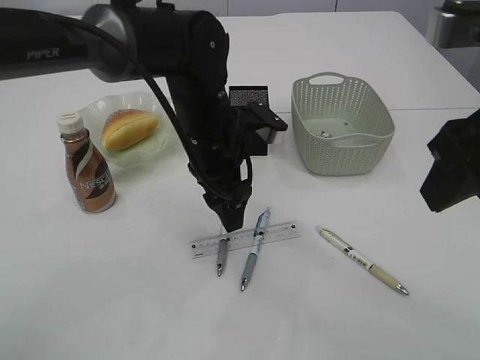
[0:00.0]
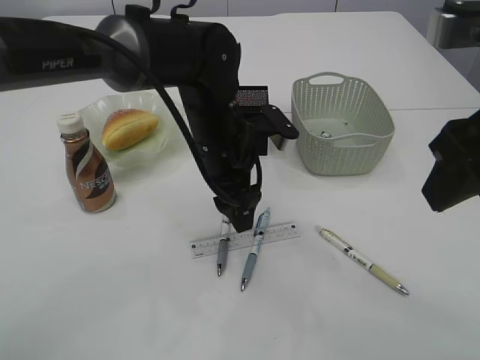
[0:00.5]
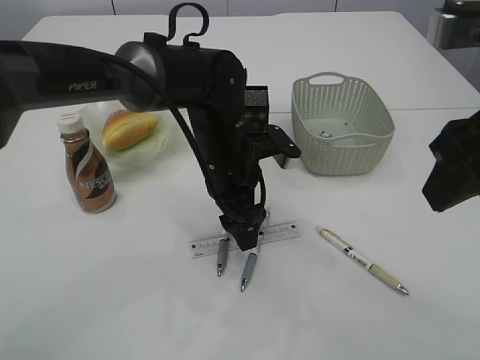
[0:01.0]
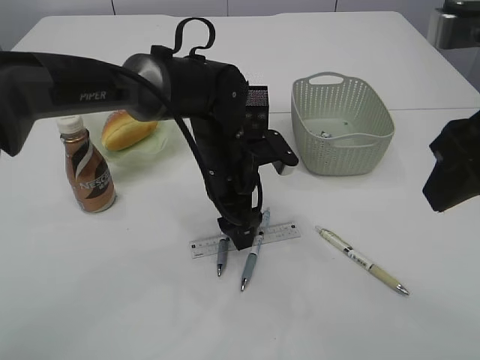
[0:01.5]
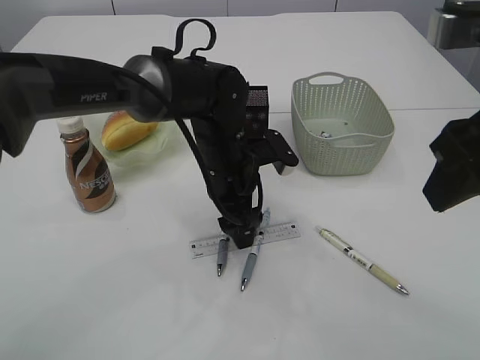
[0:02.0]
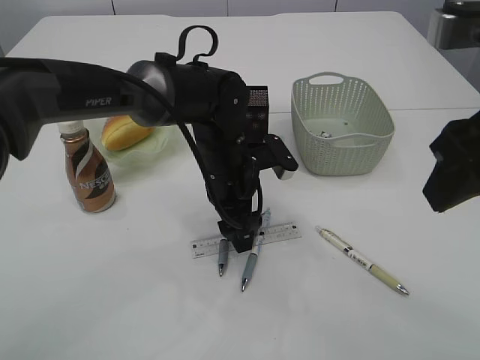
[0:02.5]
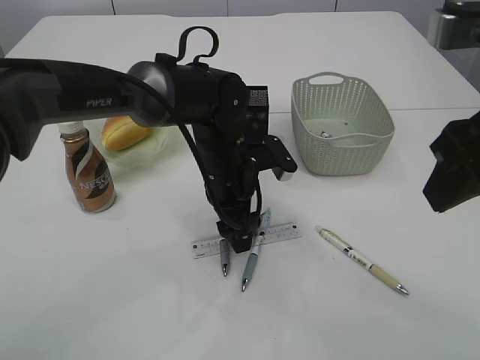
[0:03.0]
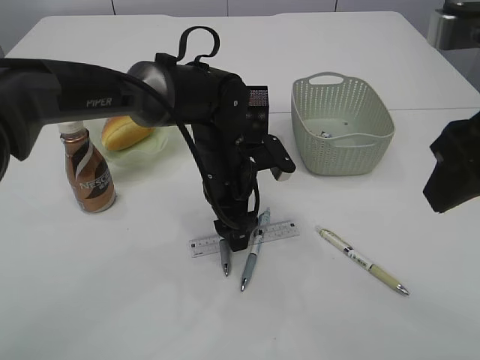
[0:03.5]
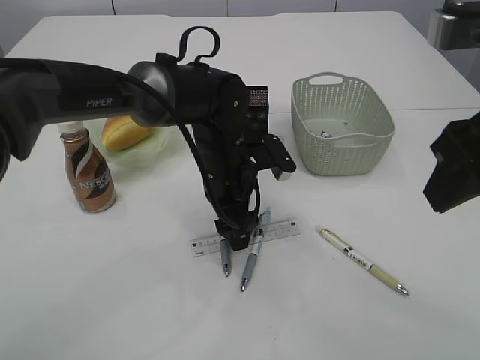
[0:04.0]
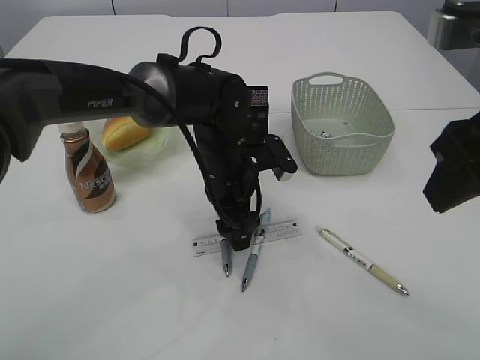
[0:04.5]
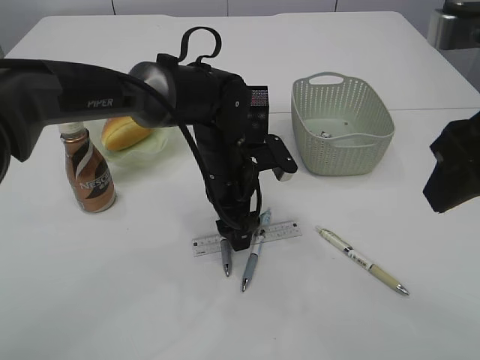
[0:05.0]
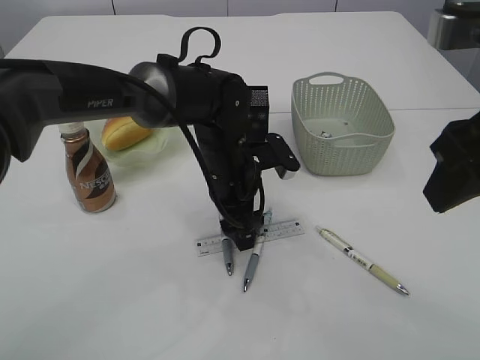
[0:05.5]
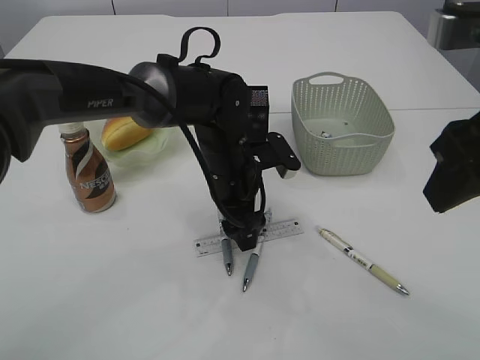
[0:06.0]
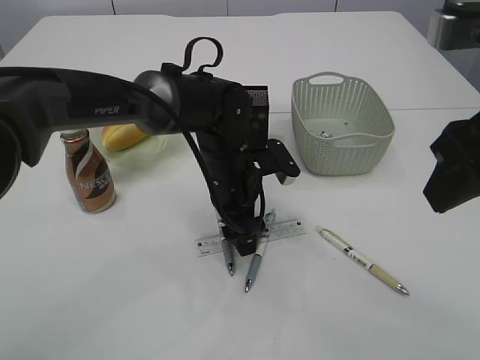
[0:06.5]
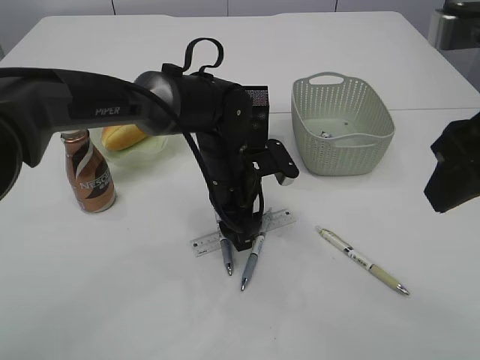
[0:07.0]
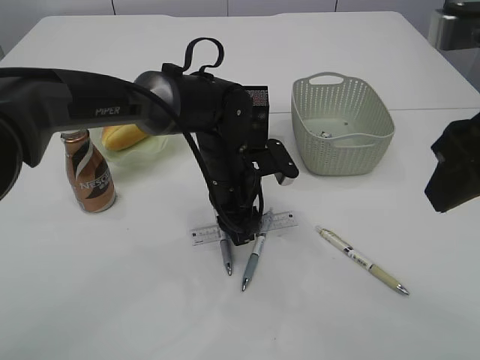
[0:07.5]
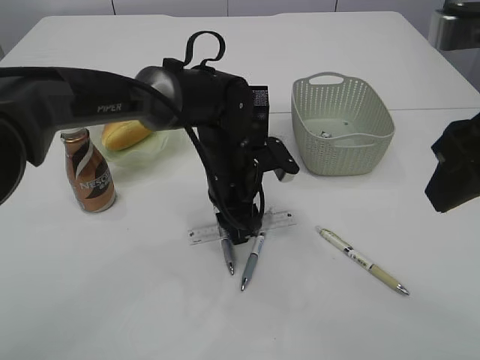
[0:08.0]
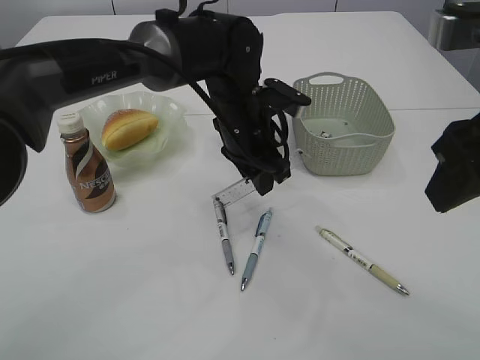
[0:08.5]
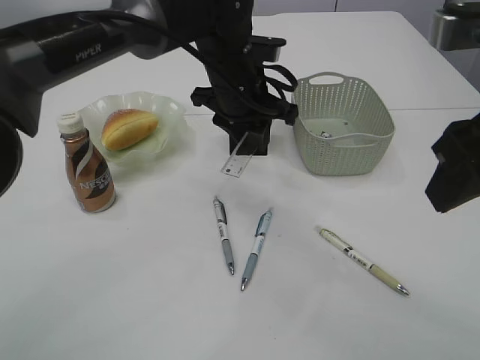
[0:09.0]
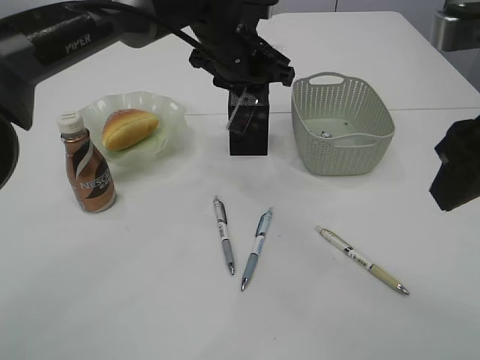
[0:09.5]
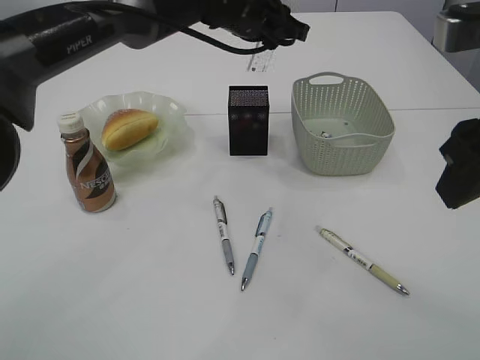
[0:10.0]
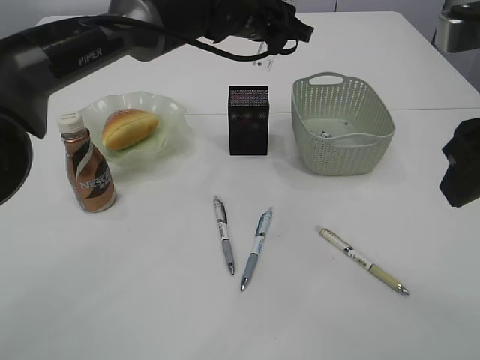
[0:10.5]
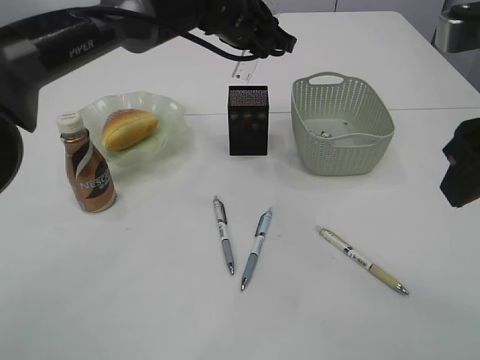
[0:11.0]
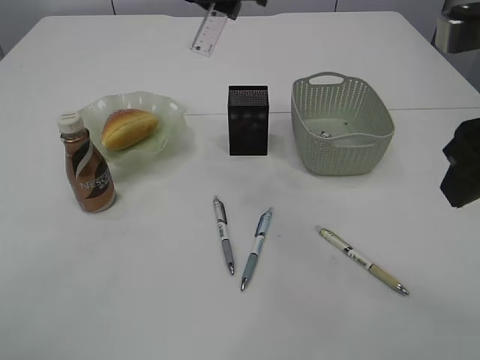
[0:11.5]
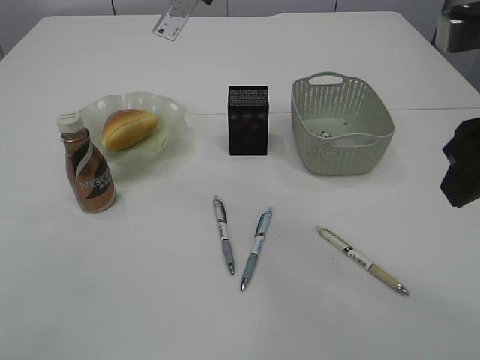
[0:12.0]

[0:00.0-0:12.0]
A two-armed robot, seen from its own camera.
Step, 0.0 to 8.5 s: pick up the ruler.
0.0 to 2.0 s: The left gripper shifts about 5 cm downward.
2.0 to 6.0 s: Neither gripper changes place.
6.0 to 8.0 s: The left gripper closes its fingers.
8.0 to 10.0 s: The left gripper shifts roughly 20 cm upward and forward.
10.0 to 12.0 s: The left gripper moves upward, backward and to the left, approximately 15 cm.

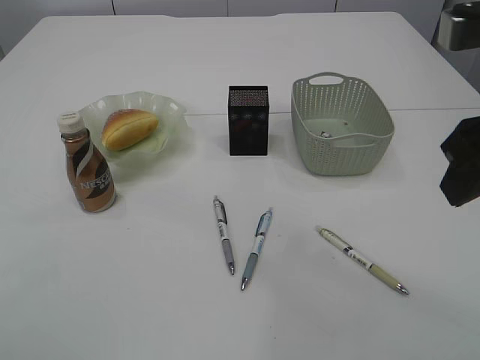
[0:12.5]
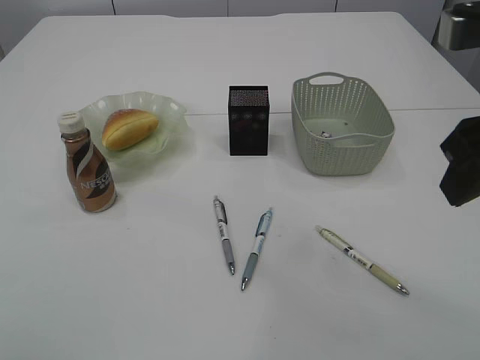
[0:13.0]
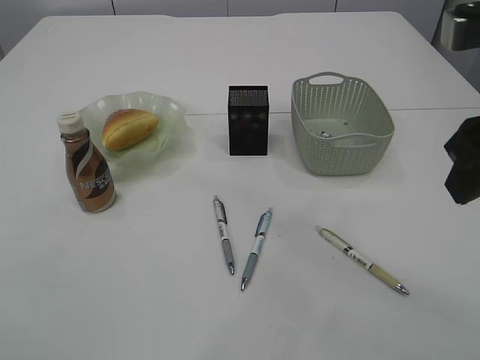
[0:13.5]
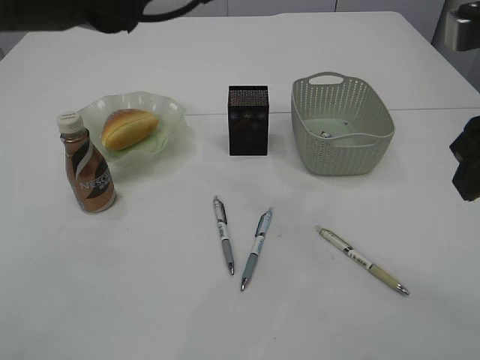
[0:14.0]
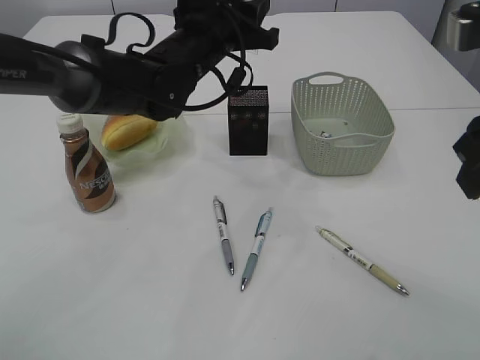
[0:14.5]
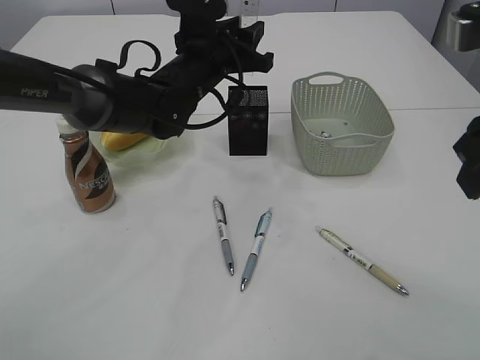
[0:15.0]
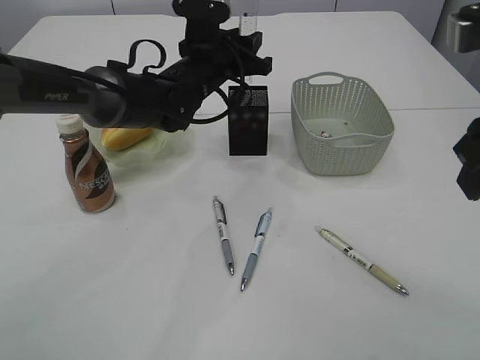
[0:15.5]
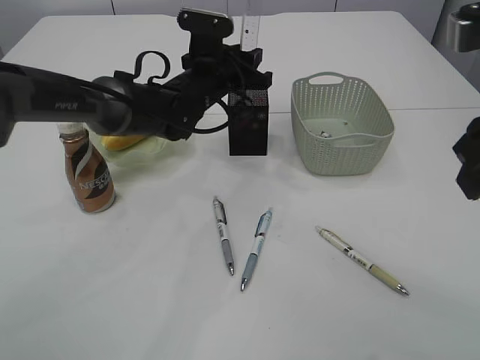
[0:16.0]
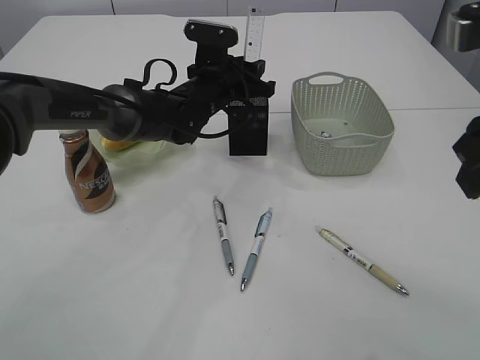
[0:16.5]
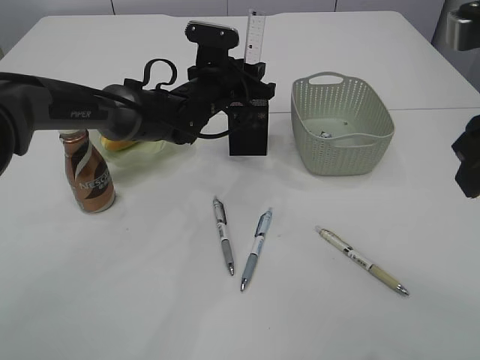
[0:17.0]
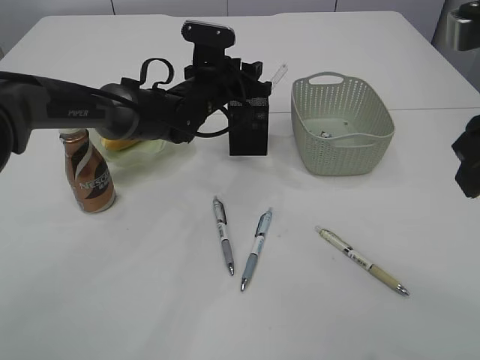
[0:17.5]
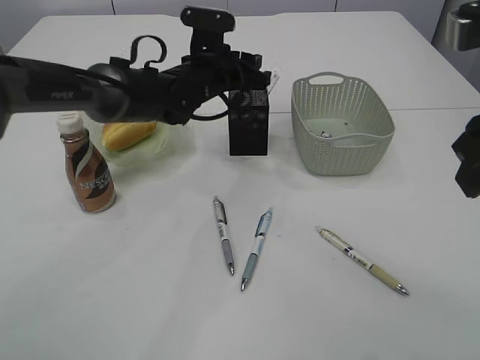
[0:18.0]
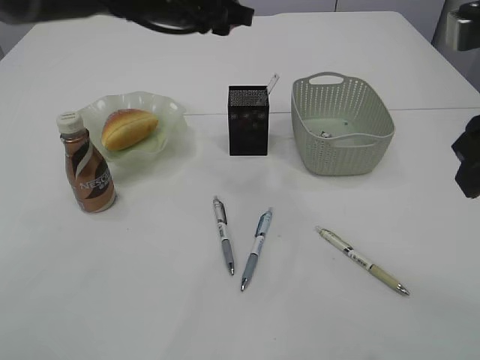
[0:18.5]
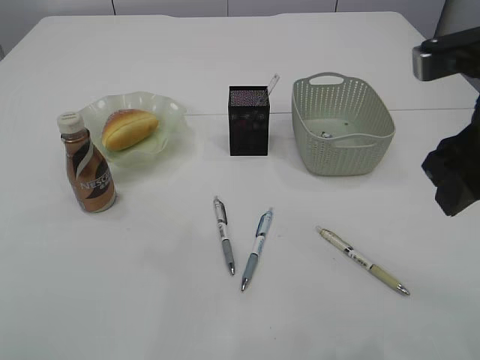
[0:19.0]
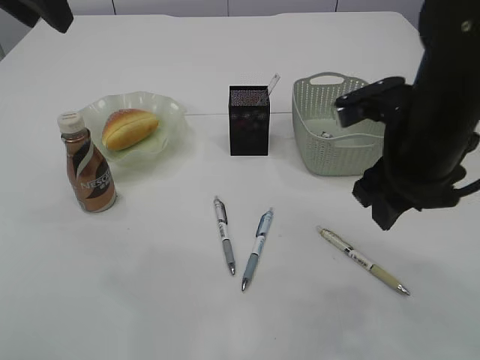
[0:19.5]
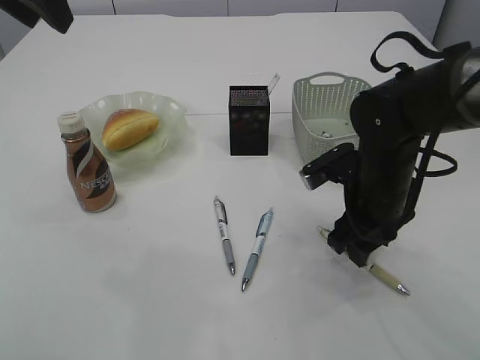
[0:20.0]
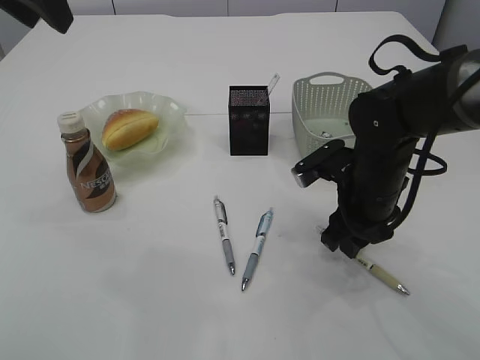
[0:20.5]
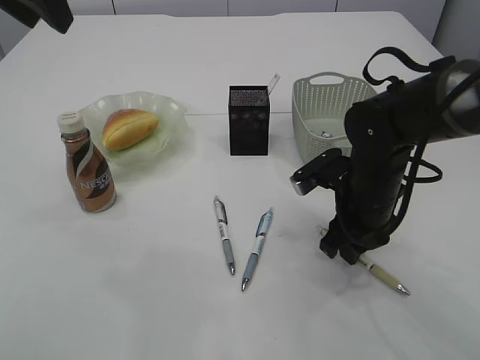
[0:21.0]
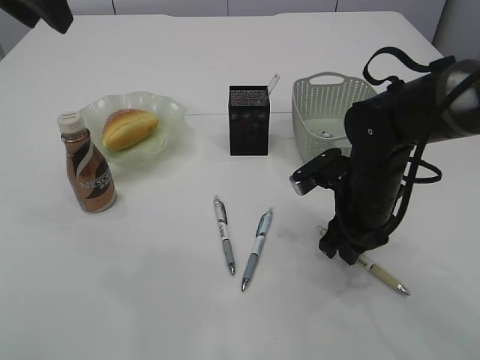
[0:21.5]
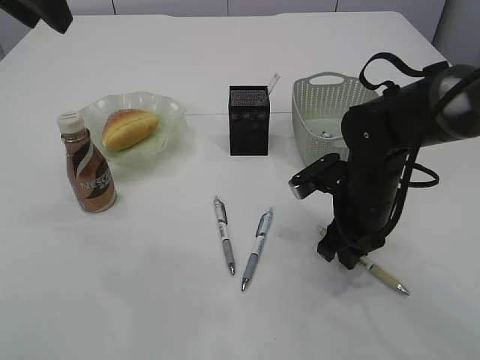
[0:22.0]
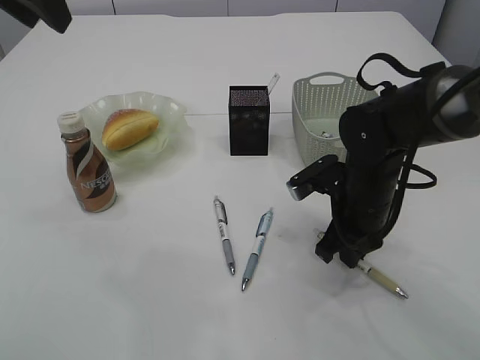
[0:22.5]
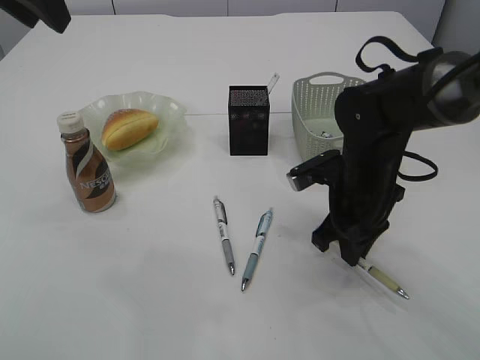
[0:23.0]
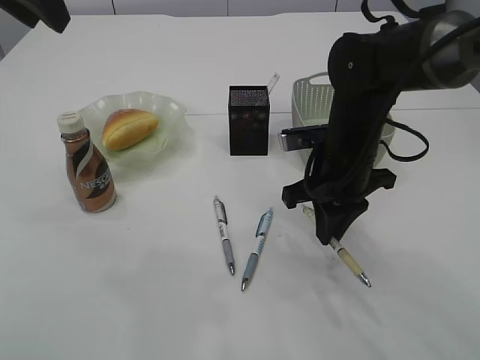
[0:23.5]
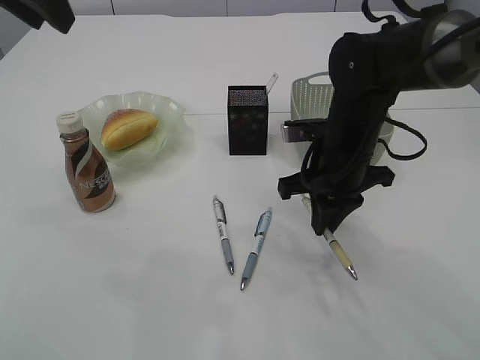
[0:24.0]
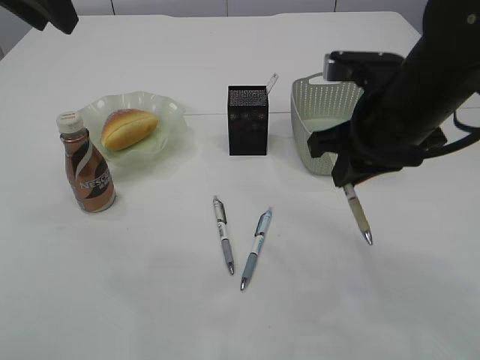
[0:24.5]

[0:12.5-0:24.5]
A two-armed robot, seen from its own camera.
Step, 12.5 to 18.0 s: Place the ruler into the pen holder.
Step, 18.5 to 23.0 s: Pick up the pen with right arm.
12.5 to 14.5 s: The left gripper moves downward and forward, about 25 cm.
14.5 to 16.5 s: The left gripper shifts some 10 cm downward.
16.5 to 18.5 s: The left gripper heads upward, covering approximately 15 cm.
18.5 to 20.5 s: The left gripper heads to the left, backward and upward, covering roughly 20 cm. Meanwhile the right gripper travels downward and forward by about 25 cm.
20.5 to 22.5 s: The right gripper closes.
22.5 to 24.5 s: The right gripper shifts roughly 15 cm upward.

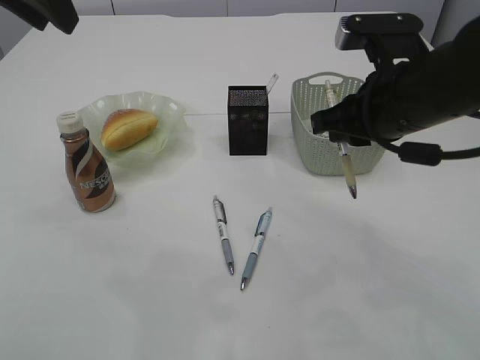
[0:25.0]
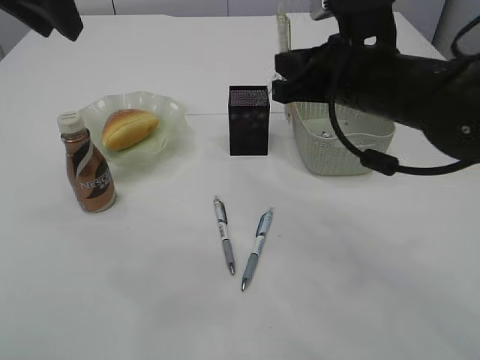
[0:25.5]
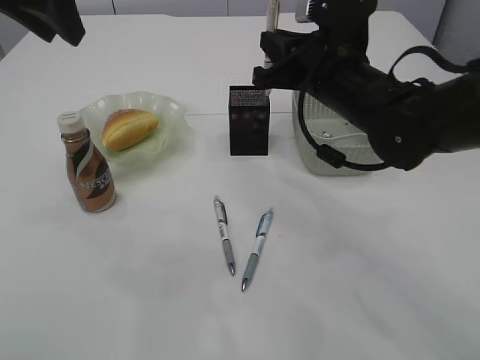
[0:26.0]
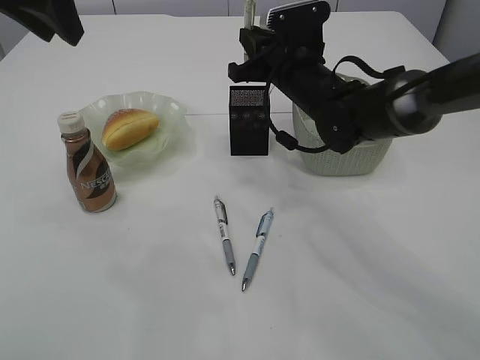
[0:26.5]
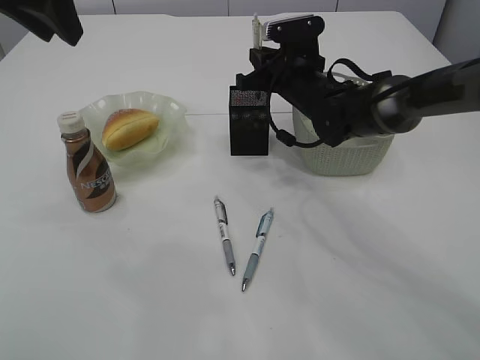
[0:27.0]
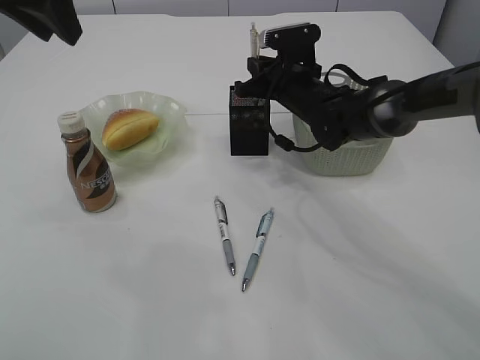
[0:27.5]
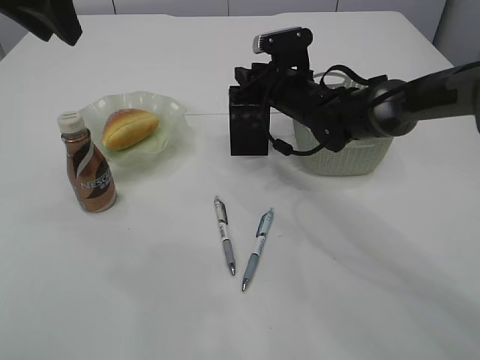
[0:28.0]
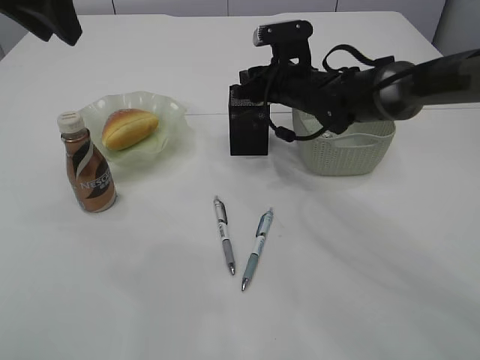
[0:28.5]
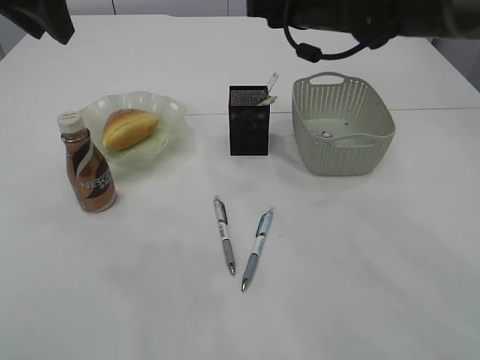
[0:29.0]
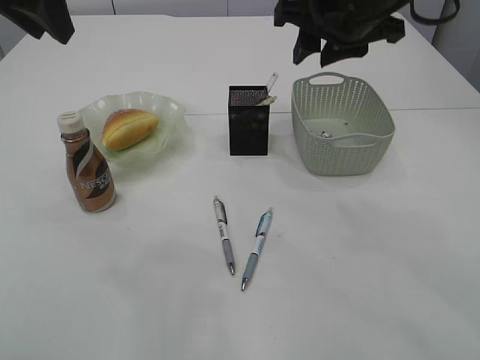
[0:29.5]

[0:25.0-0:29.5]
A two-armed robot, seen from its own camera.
Step, 25.0 to 28.5 s: Place the pen into the pen holder.
25.0 to 27.0 s: The right gripper moves forward and downward, some 20 cm.
27.0 to 29.5 s: The right gripper travels upward and backward by roughly 20 cm, and opens.
